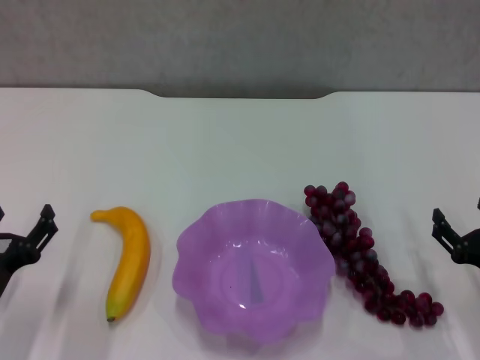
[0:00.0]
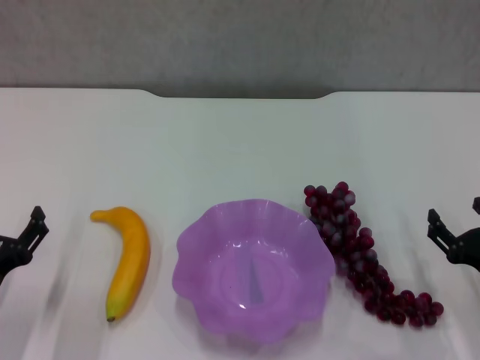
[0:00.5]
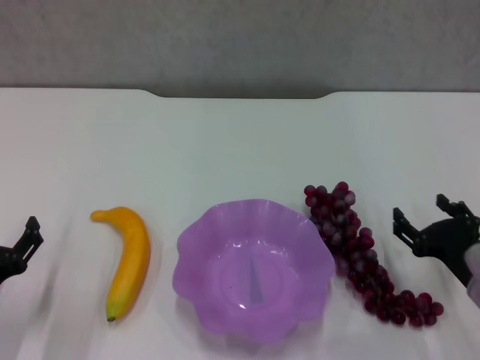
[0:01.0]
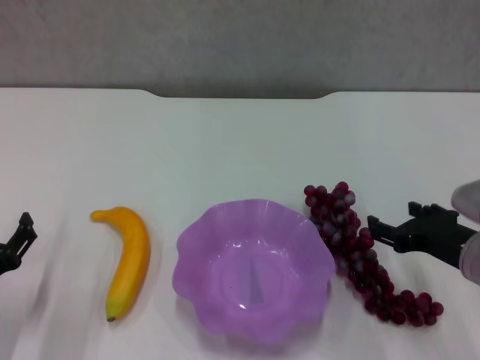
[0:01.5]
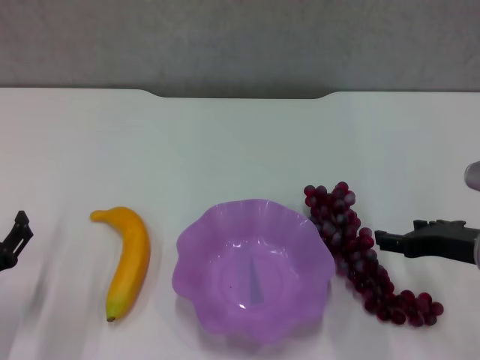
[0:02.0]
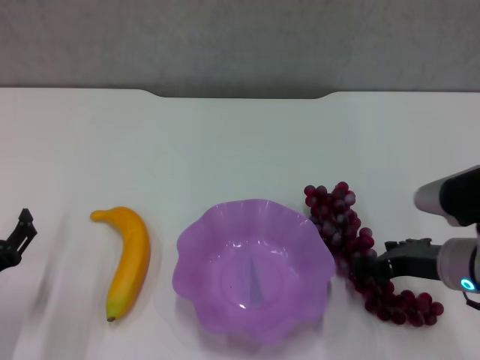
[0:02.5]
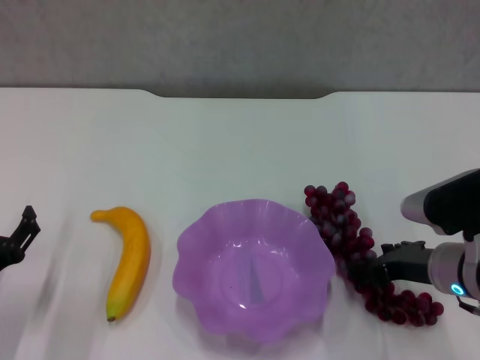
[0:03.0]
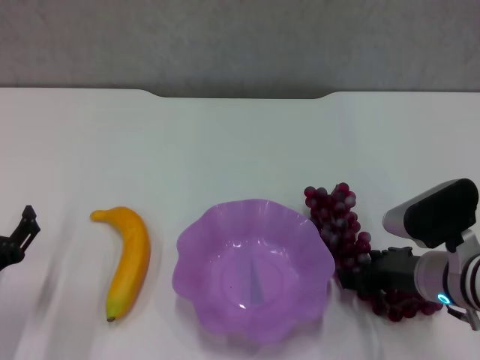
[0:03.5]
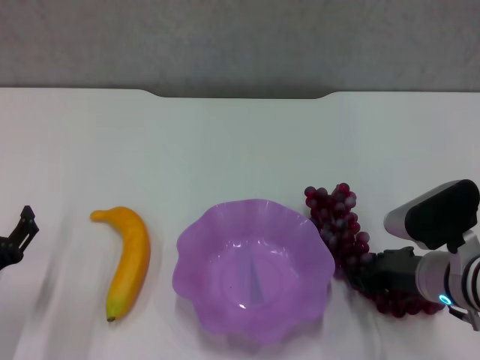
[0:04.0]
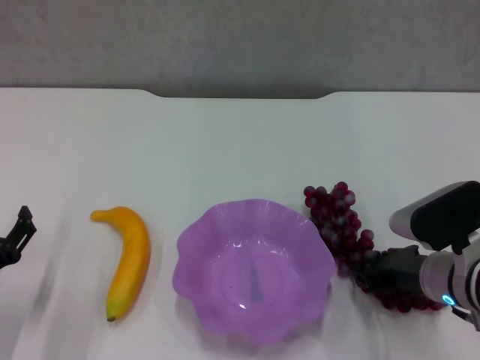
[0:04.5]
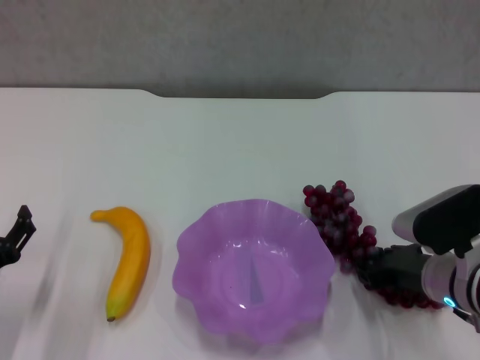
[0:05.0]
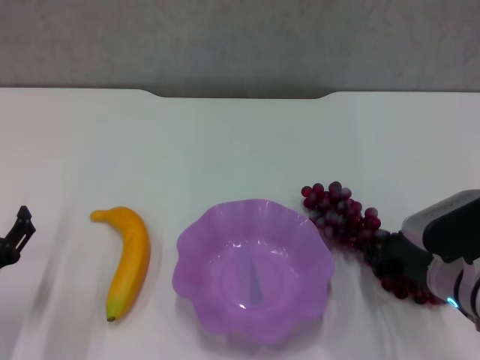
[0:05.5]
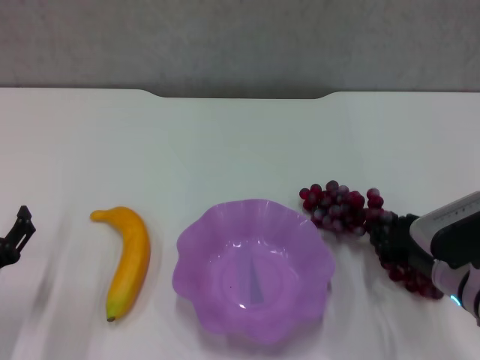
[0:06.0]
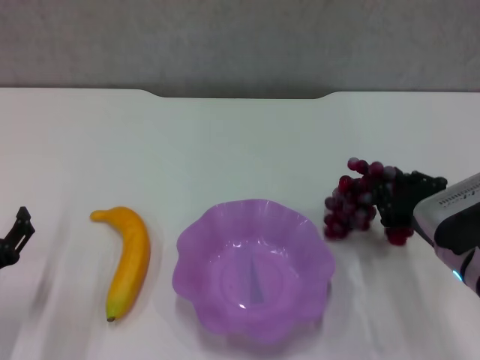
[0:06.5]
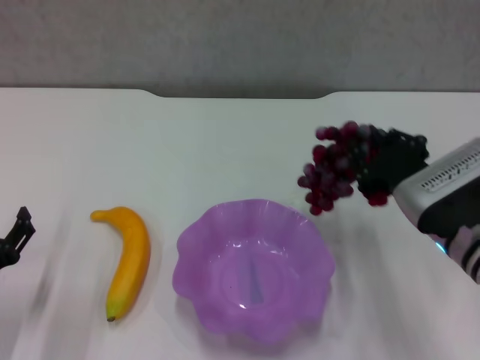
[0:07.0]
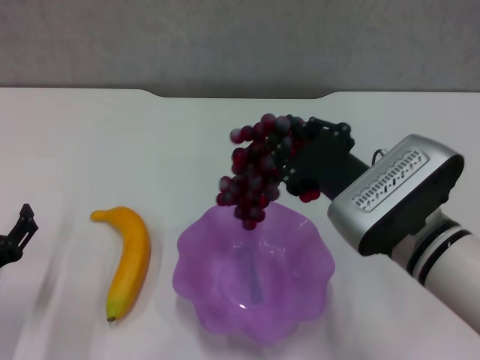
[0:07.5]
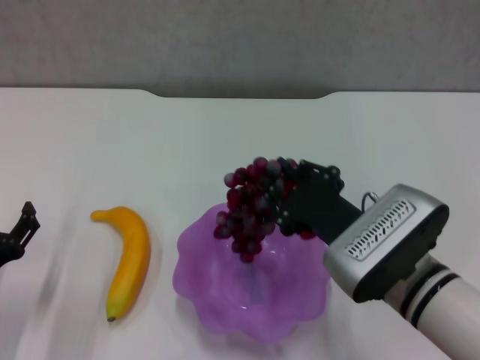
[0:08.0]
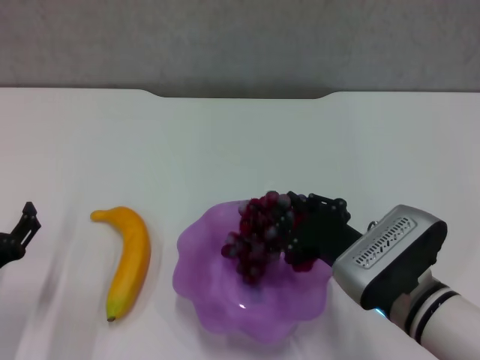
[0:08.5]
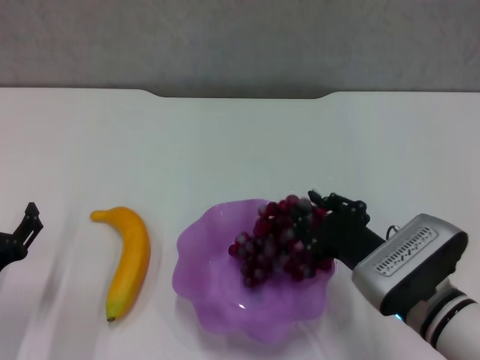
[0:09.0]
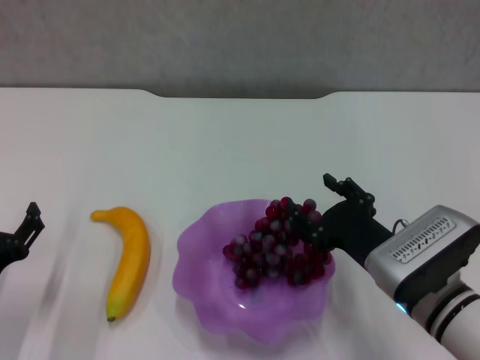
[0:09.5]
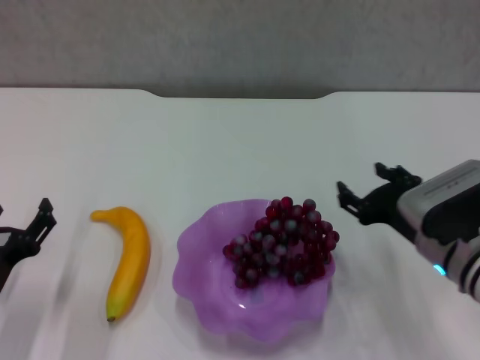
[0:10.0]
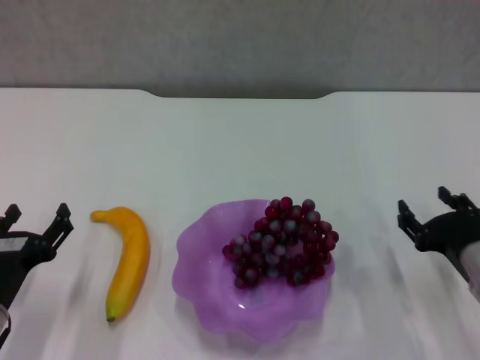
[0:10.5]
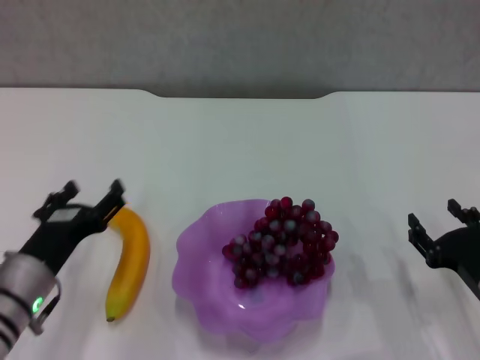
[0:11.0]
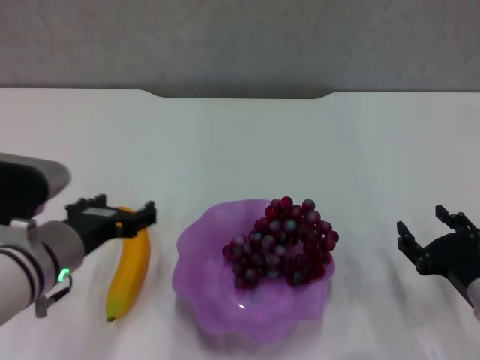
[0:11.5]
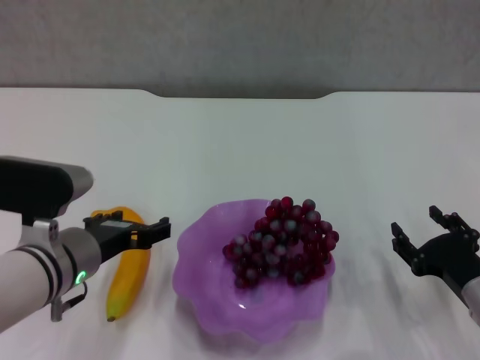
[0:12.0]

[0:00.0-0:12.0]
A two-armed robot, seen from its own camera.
Step, 0:00.0 to 0:04.0: Grasp the grape with right gripper.
Step, 0:04.5 to 0:09.5: Place the grape in the purple plate with right gripper.
0:00.0 to 0:02.0: The right gripper heads upward and forward, covering some 10 cm.
0:02.0 to 0:04.0: The right gripper is displaced downward by about 5 cm, and closes.
0:04.0 to 0:06.0: The right gripper closes up.
0:06.0 to 0:08.0: The right gripper goes approximately 10 cm to the left and upward.
0:08.0 to 0:10.0: The right gripper heads to the right, covering about 10 cm, and opens up.
0:10.0 to 0:12.0: The left gripper shifts some 15 cm to the right, upward and forward. Meanwhile the right gripper goes approximately 10 cm downward, to the right and backward.

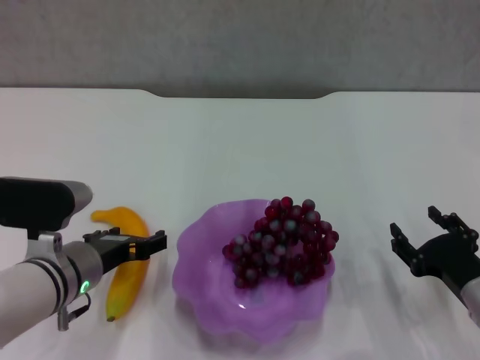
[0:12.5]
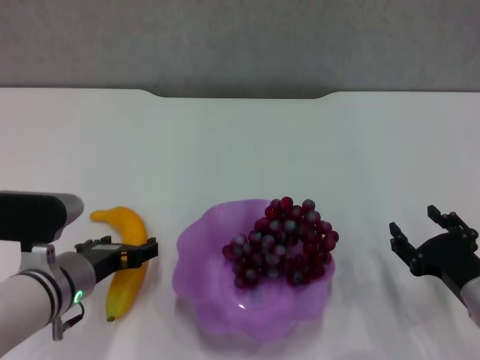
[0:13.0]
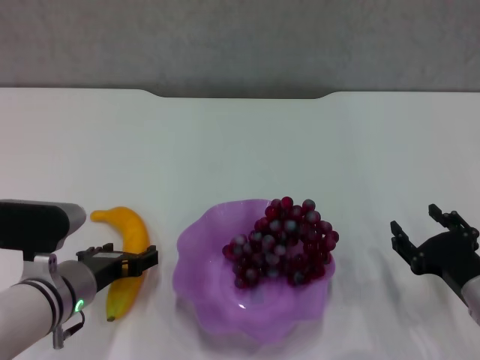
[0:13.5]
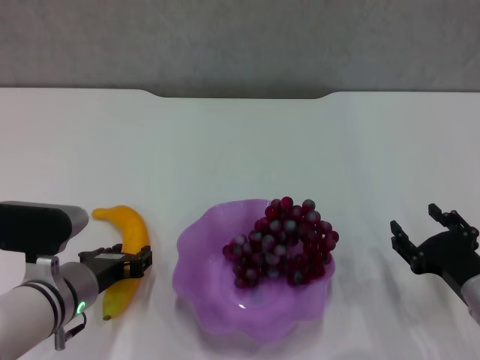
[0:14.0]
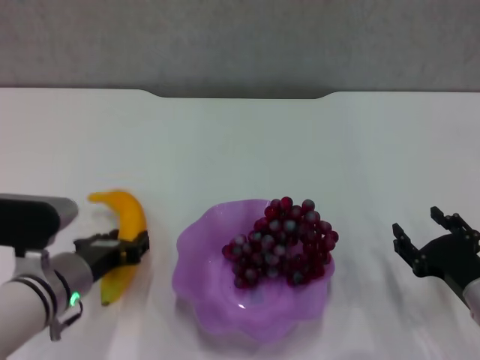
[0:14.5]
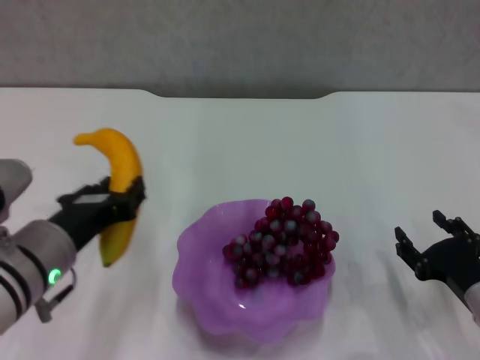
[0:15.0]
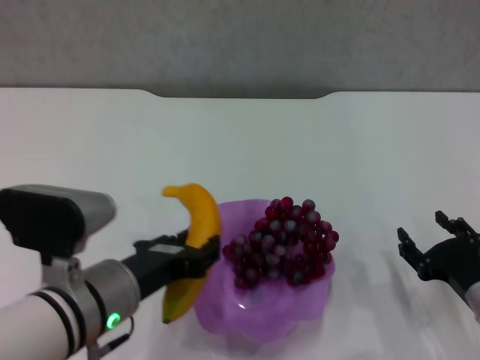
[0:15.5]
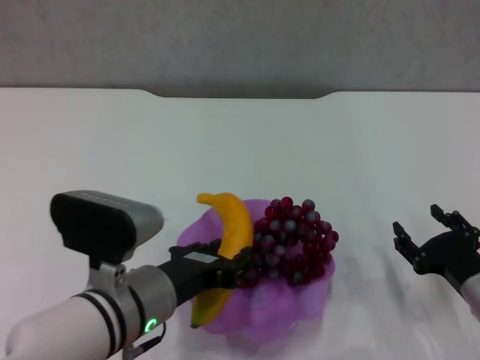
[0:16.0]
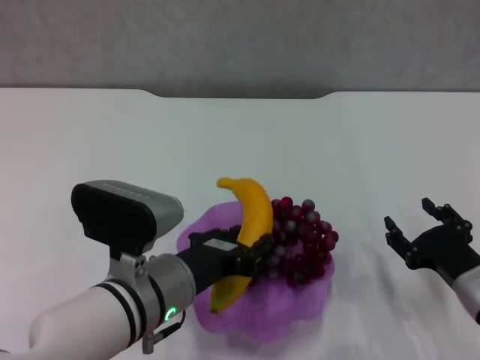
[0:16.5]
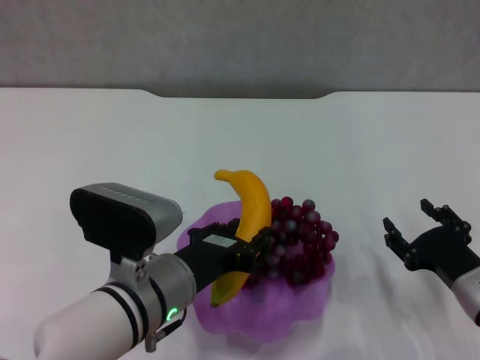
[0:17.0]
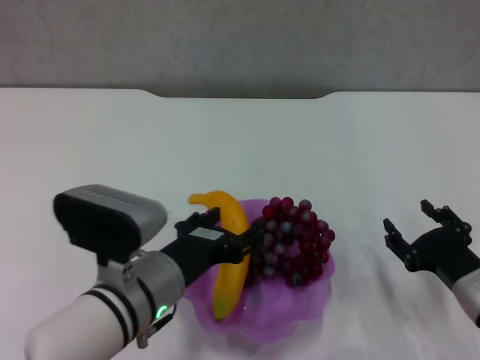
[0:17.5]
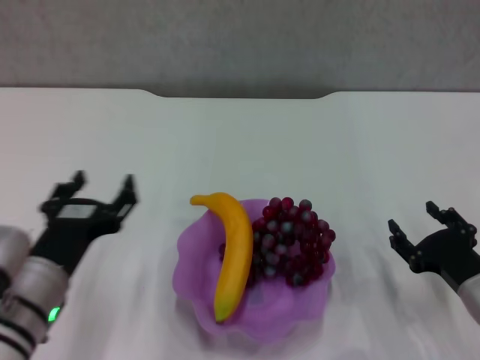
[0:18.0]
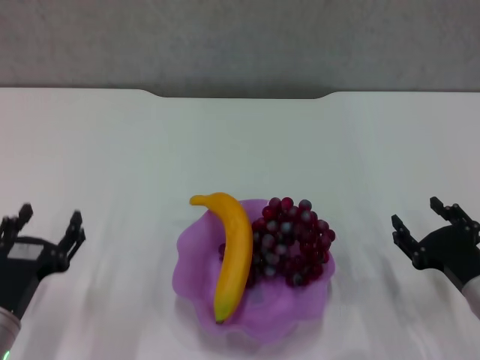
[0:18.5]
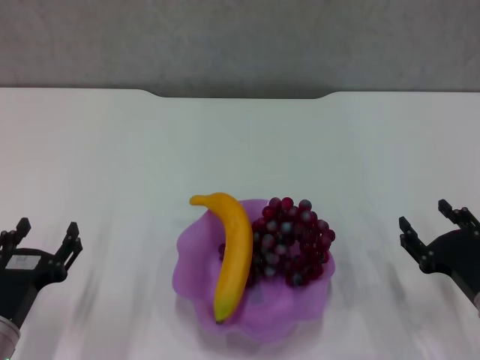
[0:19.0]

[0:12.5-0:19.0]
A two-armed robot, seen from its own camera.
Step, 0:14.5 to 0:17.5: Place the banana in the purple plate with left gripper.
0:12.5 to 0:14.5: The left gripper closes.
0:14.5 to 0:17.0: The left gripper heads to the right, covering approximately 10 cm.
0:17.0 to 0:19.0: The left gripper heads to the left and downward, covering roughly 20 cm, and opens its fingers.

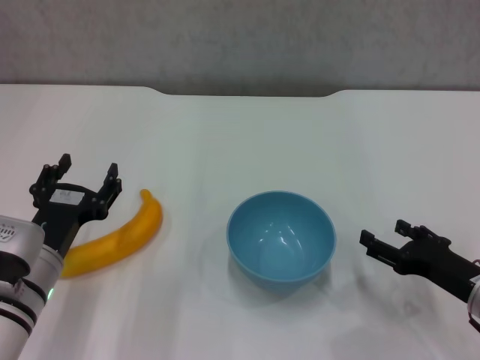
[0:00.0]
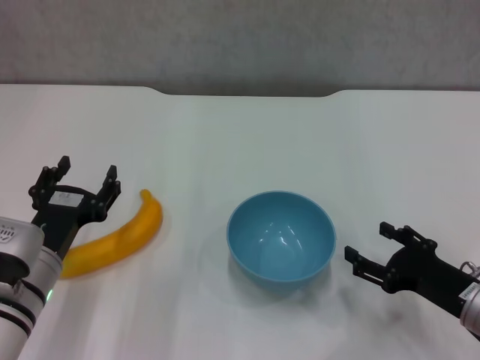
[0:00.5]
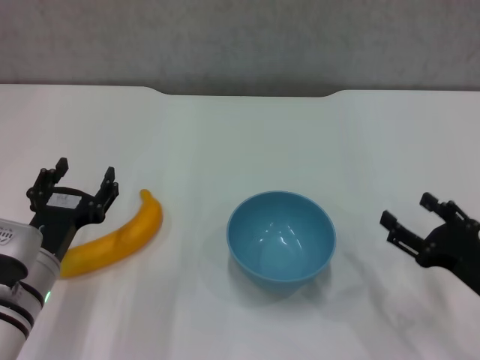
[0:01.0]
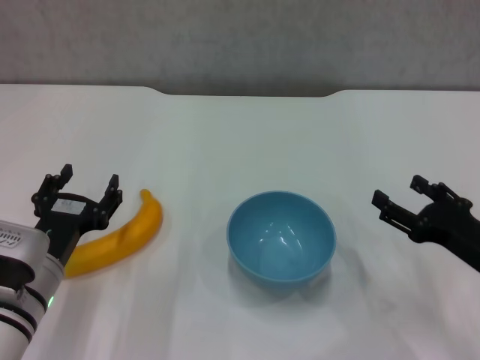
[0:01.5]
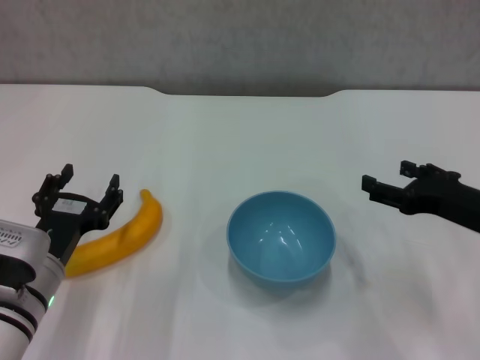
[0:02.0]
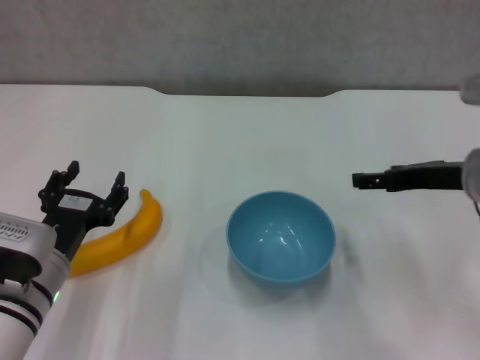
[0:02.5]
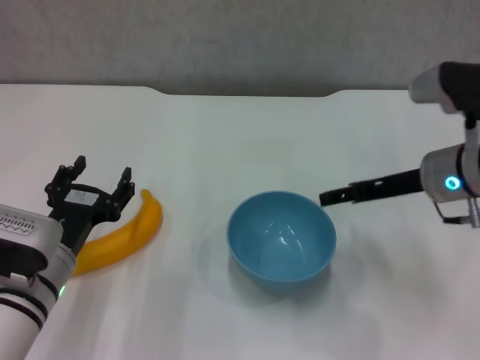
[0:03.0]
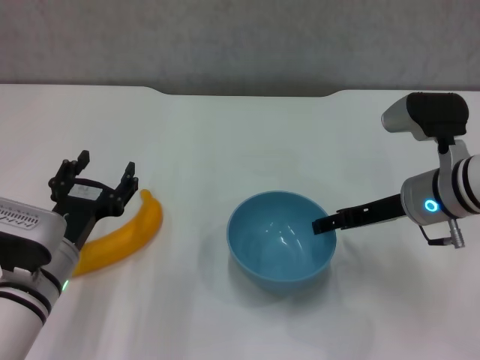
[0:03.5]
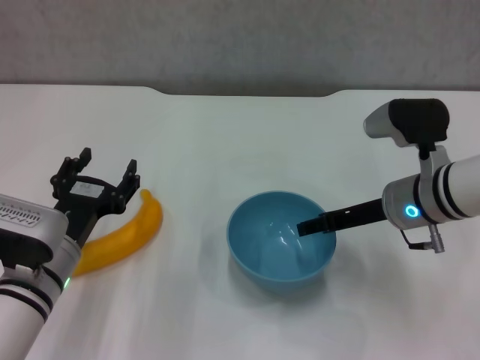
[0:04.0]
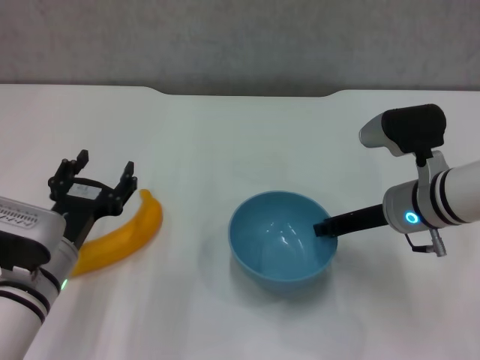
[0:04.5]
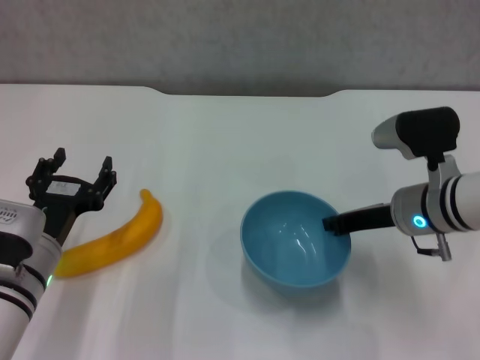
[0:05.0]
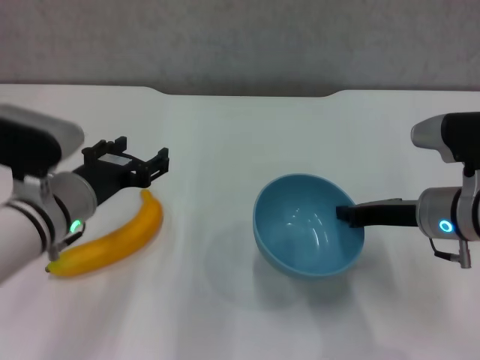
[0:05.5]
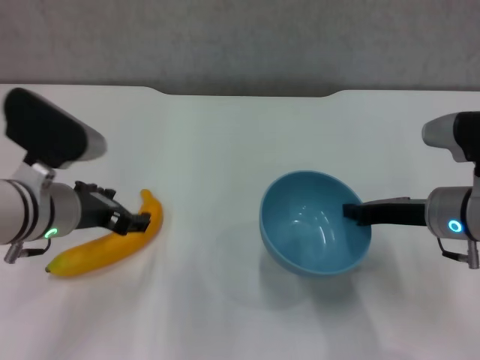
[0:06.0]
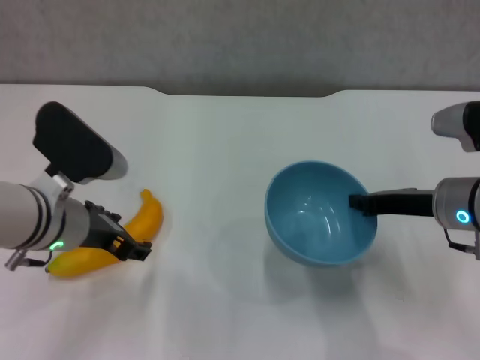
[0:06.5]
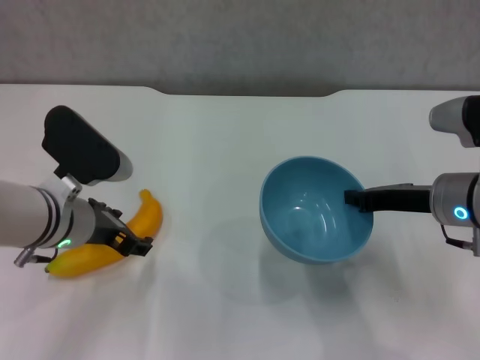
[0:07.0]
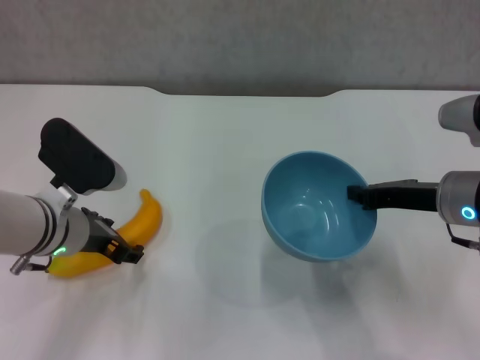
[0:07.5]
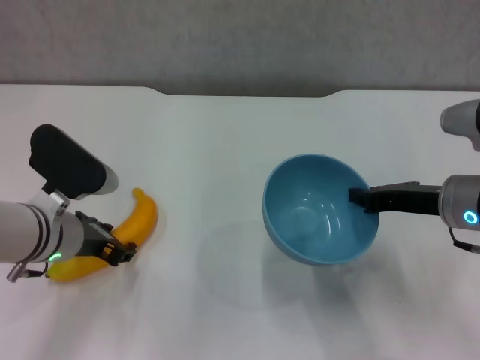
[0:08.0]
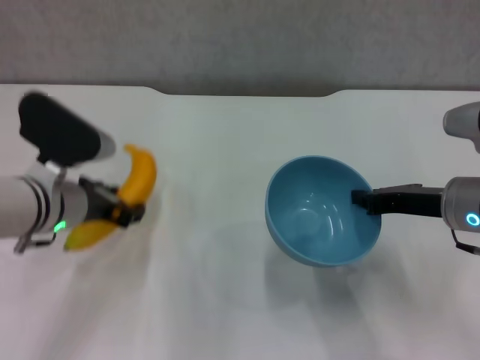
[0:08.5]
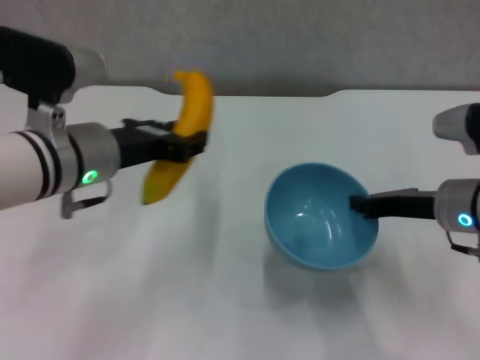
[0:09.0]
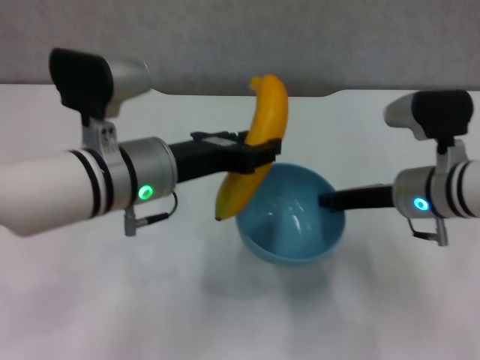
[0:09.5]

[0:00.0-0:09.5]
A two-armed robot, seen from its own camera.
Step, 0:00.0 to 0:04.5: Grasp the blue bowl with right gripper.
Step, 0:06.0 to 0:08.0: Grasp the banana with left gripper.
0:00.0 to 0:02.0: The right gripper goes approximately 10 cm upward.
0:02.0 to 0:04.0: The right gripper heads to the left and forward, covering roughly 10 cm.
0:04.0 to 0:05.5: The left gripper heads upward, covering some 5 cm. Meanwhile the right gripper closes.
0:07.5 to 0:09.5: The left gripper is displaced to the right and upward by about 10 cm, and closes up.
